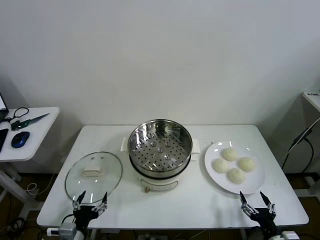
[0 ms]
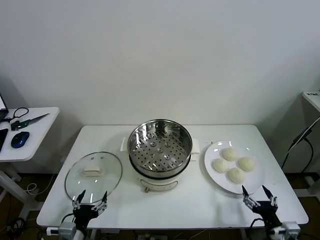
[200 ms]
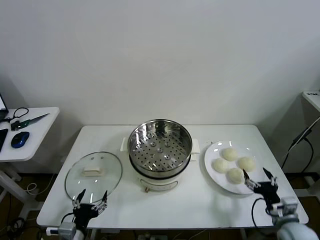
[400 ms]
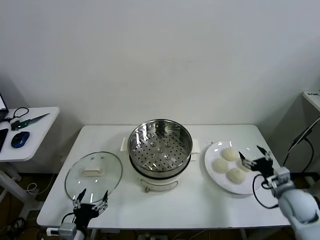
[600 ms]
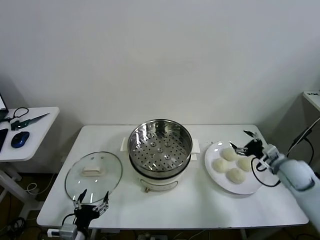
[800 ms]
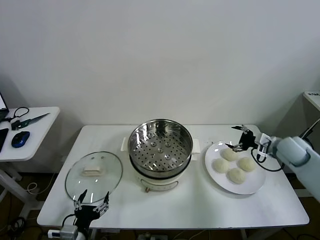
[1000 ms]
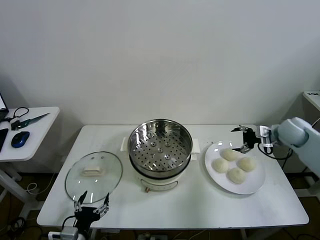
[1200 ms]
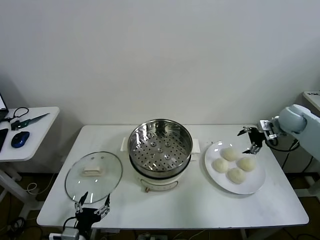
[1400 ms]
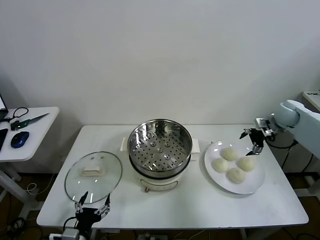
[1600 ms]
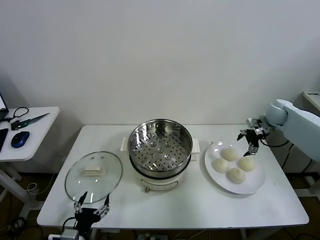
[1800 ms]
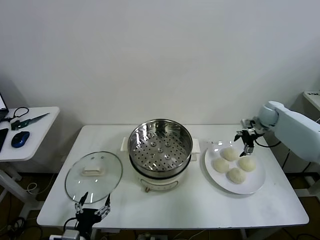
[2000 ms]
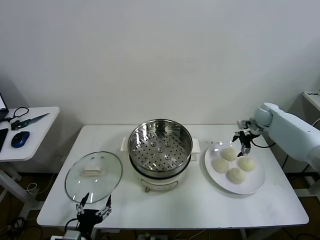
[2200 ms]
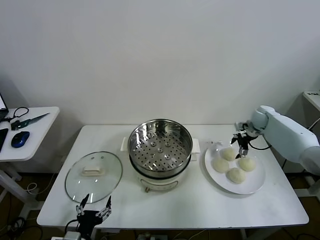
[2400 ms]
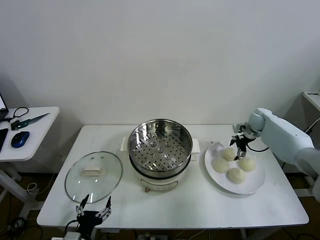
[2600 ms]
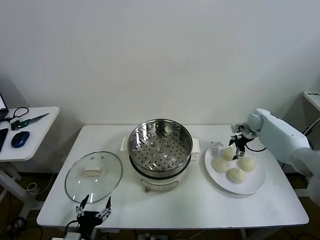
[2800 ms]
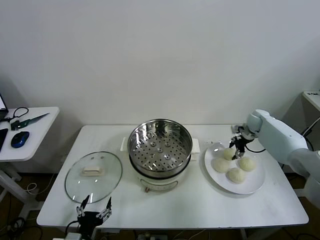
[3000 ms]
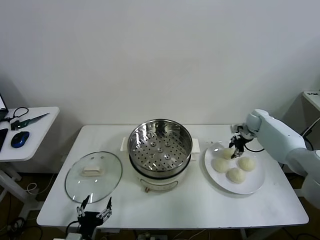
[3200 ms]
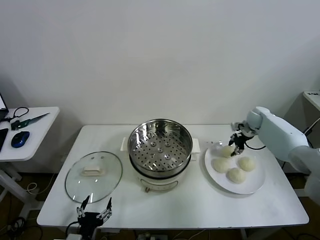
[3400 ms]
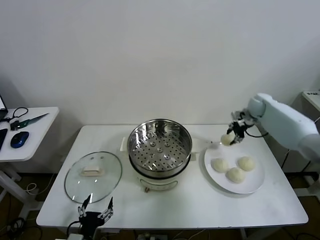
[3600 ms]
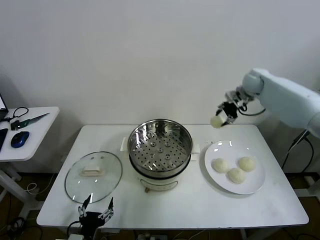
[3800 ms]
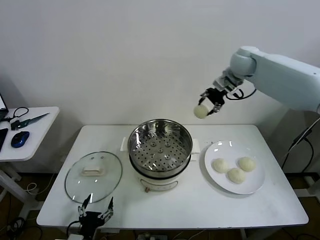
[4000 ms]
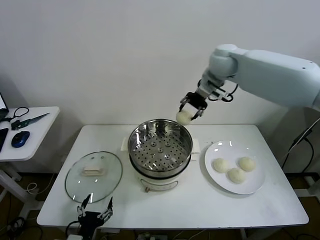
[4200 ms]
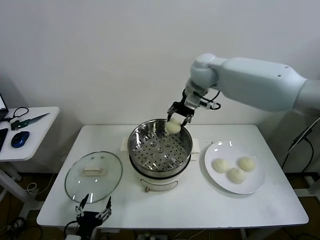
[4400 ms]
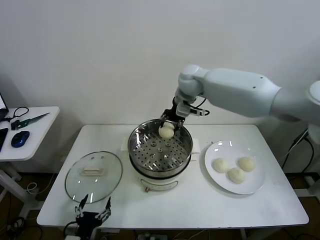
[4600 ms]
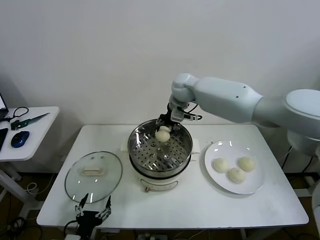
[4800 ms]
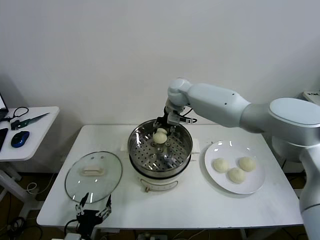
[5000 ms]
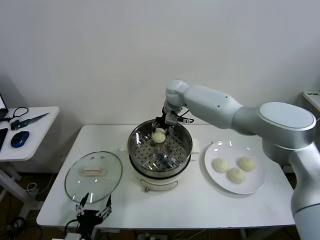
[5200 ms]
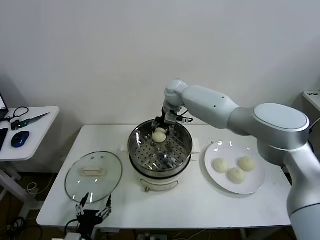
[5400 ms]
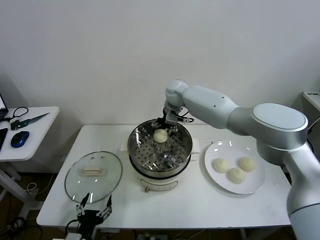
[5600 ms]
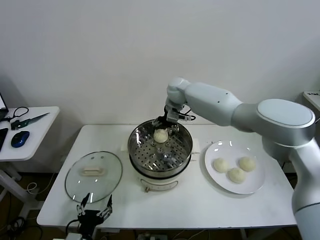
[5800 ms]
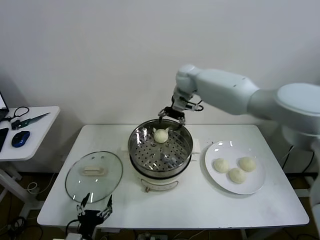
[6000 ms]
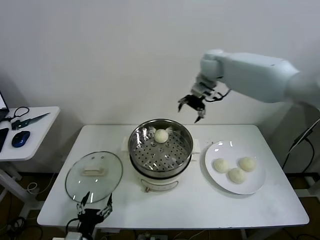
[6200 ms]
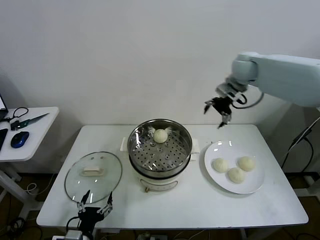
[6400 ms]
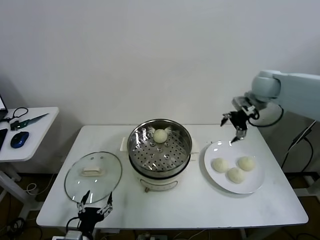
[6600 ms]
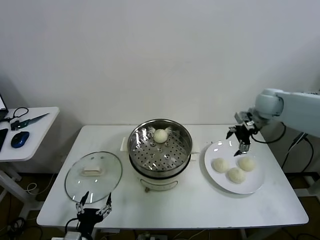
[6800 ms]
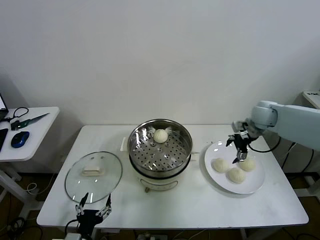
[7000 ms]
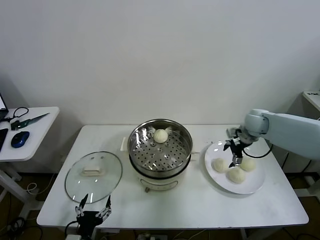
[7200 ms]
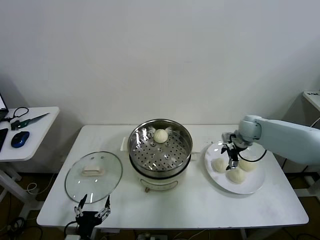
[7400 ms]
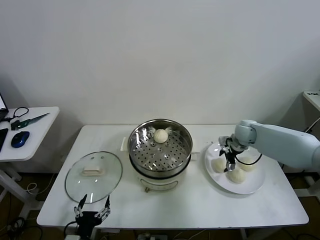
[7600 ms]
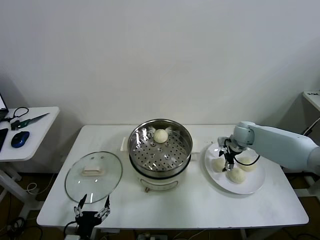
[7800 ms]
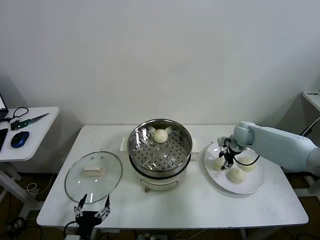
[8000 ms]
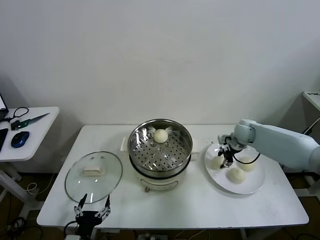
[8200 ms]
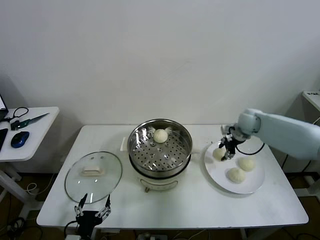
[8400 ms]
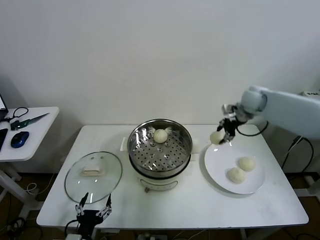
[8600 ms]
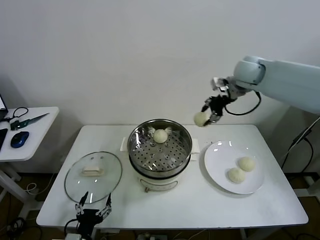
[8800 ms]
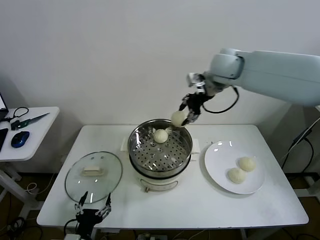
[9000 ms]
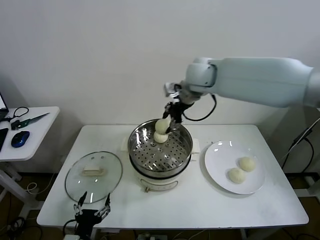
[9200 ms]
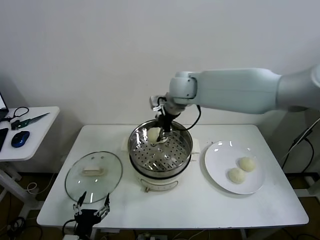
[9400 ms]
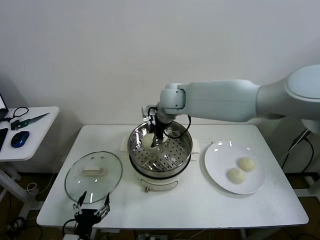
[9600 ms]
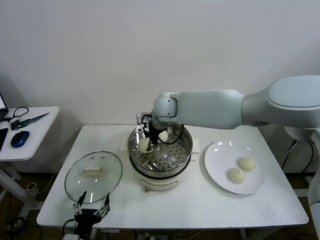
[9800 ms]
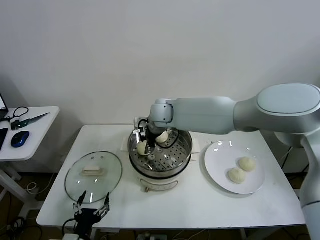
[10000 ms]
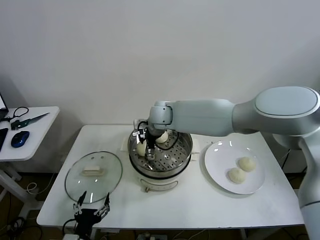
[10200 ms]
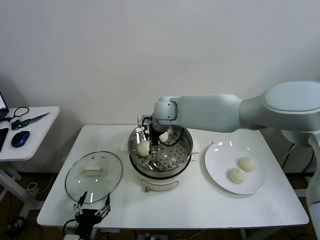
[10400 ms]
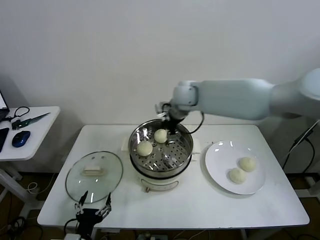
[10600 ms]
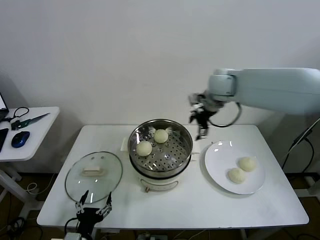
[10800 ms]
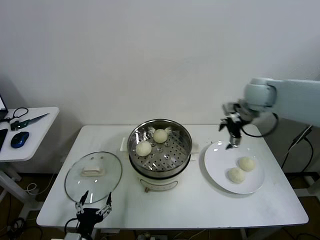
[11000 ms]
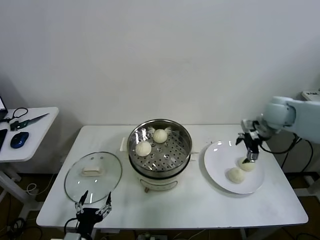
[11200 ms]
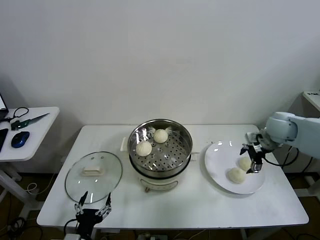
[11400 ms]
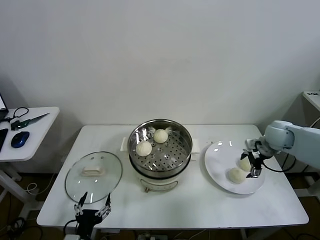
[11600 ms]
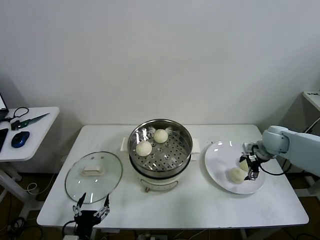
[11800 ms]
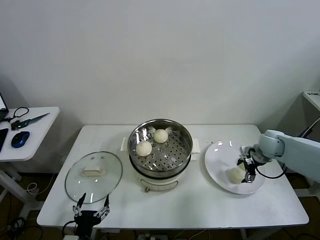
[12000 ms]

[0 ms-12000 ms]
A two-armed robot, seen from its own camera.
Task of the whole recording: take steamed baozi put them in steamer then cover it.
Step, 0 ms to 2800 ms: Grasp the baozi in the plate with right gripper.
Step, 3000 ms to 5800 ms: Place the baozi on the steamer with right gripper.
Step, 6000 ms to 7800 ms: Grasp the baozi in the plate with right gripper.
Step, 8000 ms to 10400 ms: Place the baozi on the steamer with right gripper.
1600 ms to 3000 ms: The right gripper moves downward and forward, about 10 cm, and closes.
3000 ms to 4400 ms: The right gripper moves to the left and upward, about 40 cm.
4400 ms to 6000 ms: The right gripper moves forward, some 5 cm, moves approximately 10 cm downward and comes back, and opens up.
6000 ms to 7600 ms: The right gripper goes about 30 cm downward and to the right.
7600 ms to 9000 ms: The right gripper travels upward and to the left by roughly 35 cm, and closes up.
9000 ms to 10400 ms: The right gripper is displaced to the left and downward by approximately 20 cm, and opens.
10400 ms to 12000 ms: The right gripper heads to the right, covering roughly 40 cm.

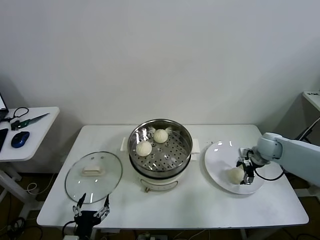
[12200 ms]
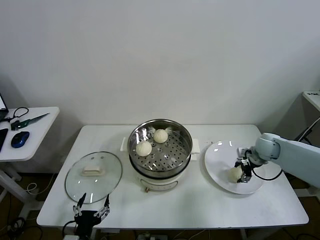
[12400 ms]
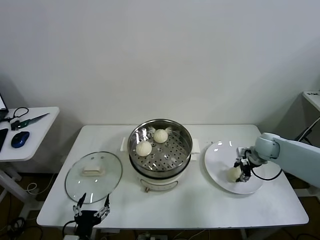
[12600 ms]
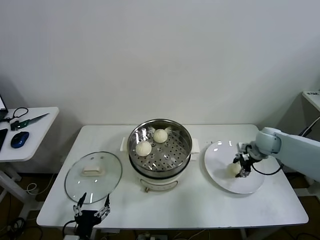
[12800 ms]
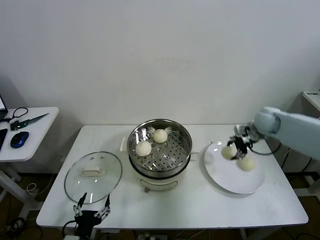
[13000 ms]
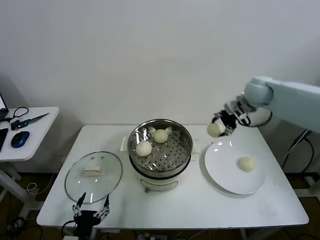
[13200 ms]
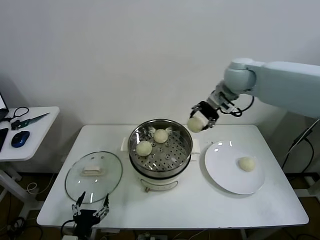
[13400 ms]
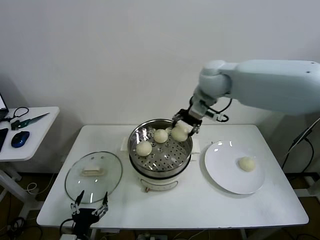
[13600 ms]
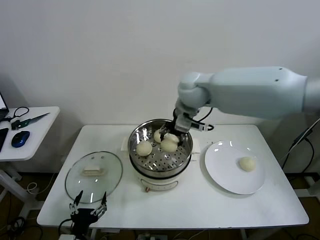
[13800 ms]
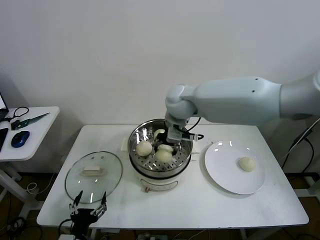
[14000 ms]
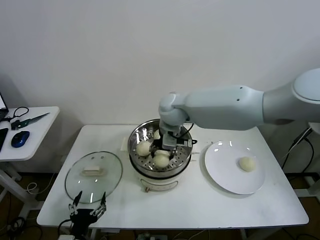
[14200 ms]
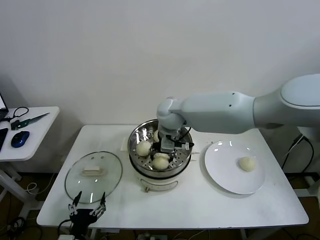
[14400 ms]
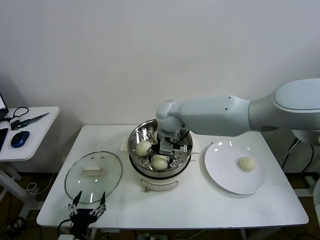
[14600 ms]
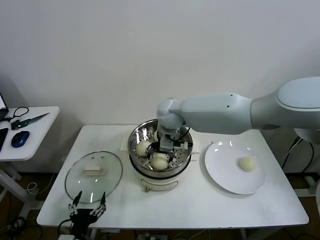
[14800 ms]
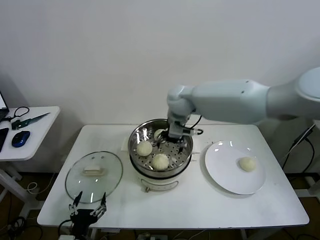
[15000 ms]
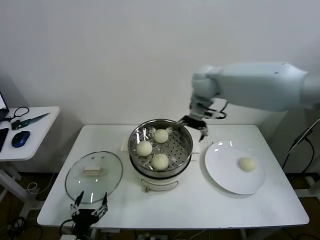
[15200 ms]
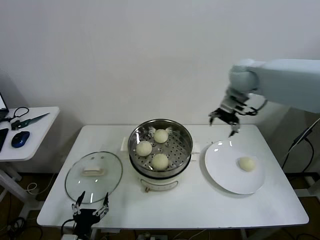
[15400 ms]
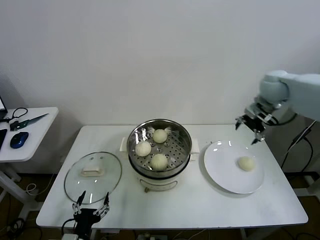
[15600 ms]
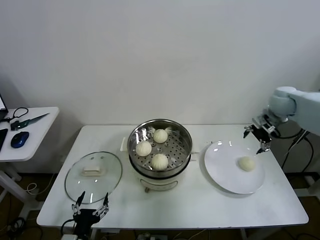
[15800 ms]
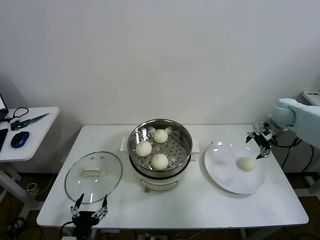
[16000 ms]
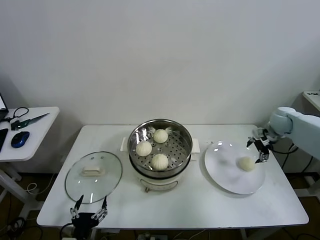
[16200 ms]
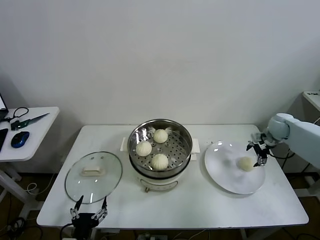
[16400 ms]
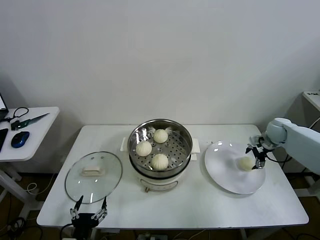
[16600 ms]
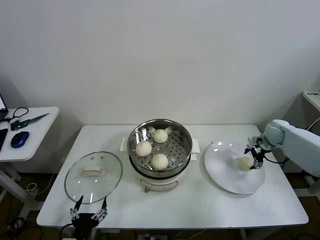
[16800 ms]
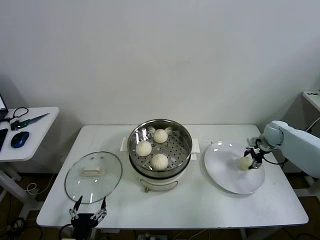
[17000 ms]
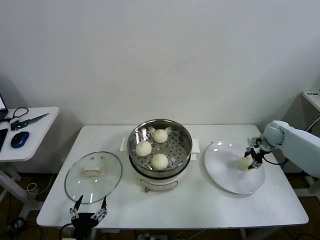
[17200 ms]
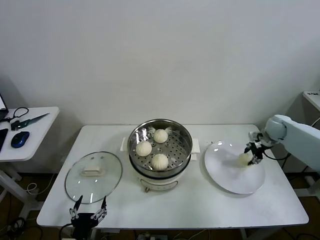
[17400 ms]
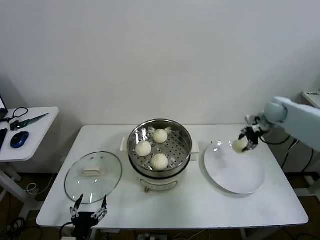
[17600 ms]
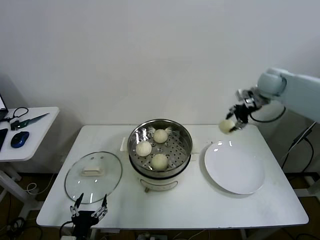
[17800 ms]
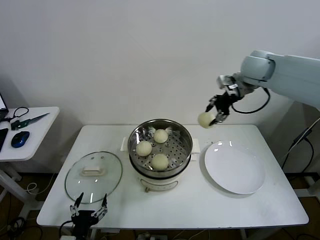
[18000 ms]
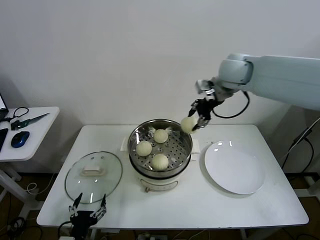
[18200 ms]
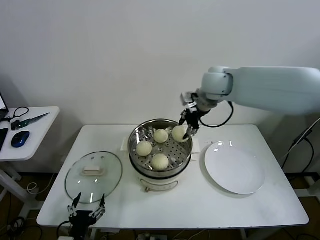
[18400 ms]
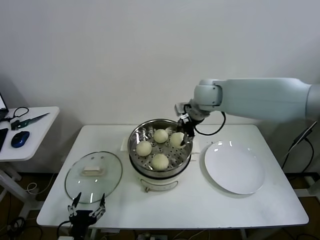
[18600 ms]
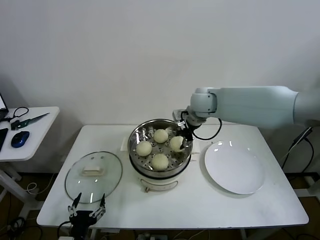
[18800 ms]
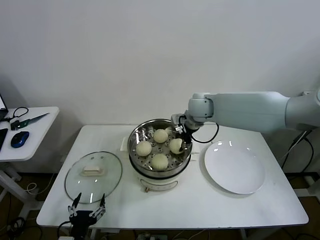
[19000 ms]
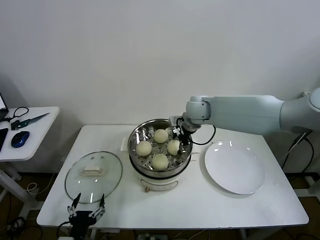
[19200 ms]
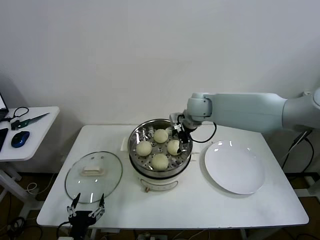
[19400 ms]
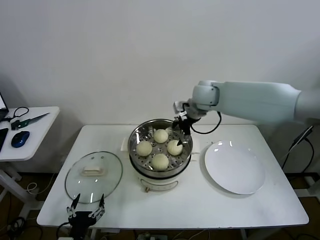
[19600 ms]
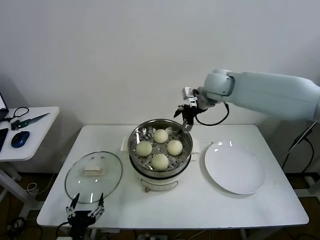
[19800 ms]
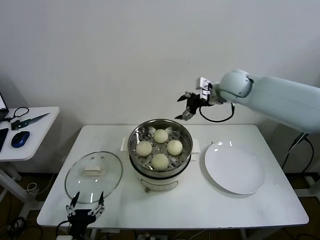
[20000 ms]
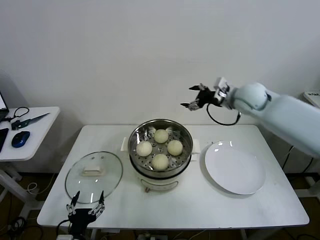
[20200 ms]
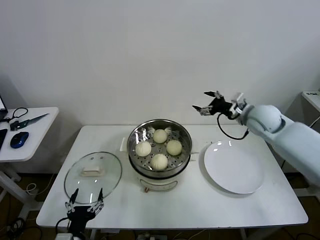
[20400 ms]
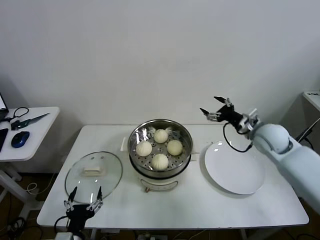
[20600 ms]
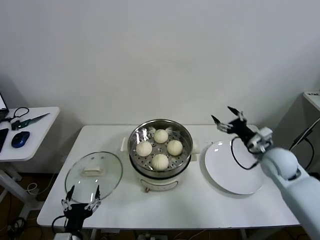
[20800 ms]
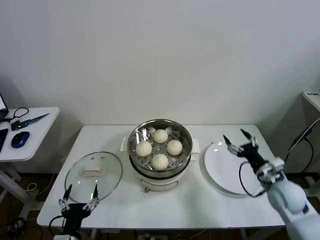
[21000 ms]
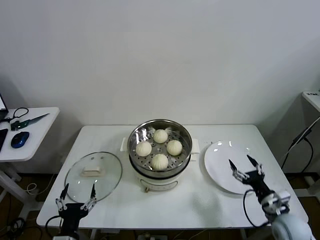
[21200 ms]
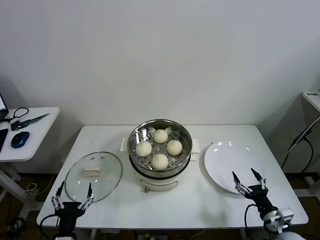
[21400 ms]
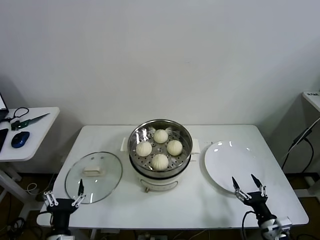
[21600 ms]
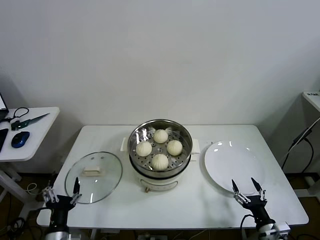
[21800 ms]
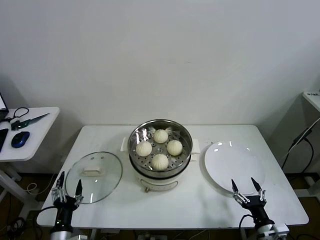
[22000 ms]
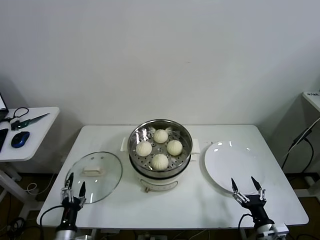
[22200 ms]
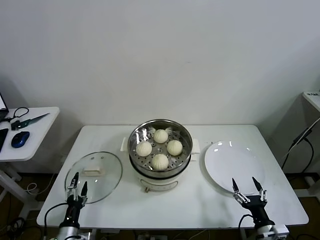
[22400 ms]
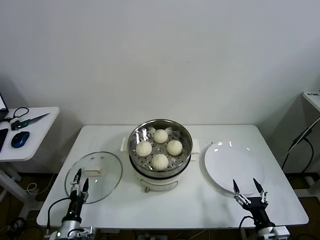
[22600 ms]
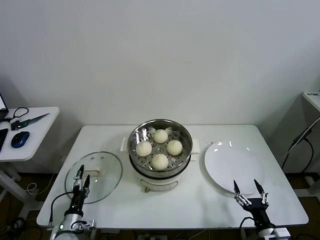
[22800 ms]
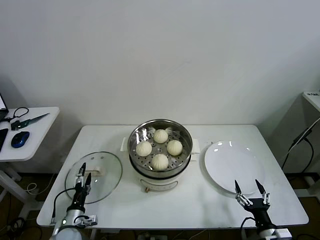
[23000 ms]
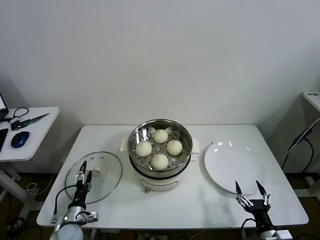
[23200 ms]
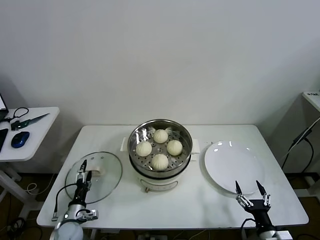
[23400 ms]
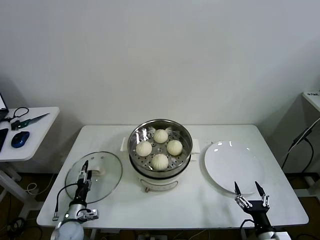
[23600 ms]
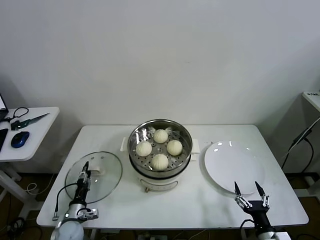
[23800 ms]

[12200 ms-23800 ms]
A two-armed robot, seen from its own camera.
Task of the whole recording: take steamed baozi put them in steamer then cover it.
Step, 12600 ms to 14600 ms: Place the baozi on the steamer with right gripper.
Step, 15000 ms to 17000 ms: Grasp the baozi in the plate with right gripper.
Step, 17200 ms to 19200 ms: Place the baozi on the steamer with right gripper.
12200 ms to 13600 ms: The right gripper shifts roughly 35 cm upward and to the left, and closes up.
13600 ms to 15000 ms: The right gripper goes roughly 10 cm downward and to the left, and opens its fingers.
15000 ms to 16600 ms: The right gripper goes some 40 cm to the right and downward.
16600 ms to 18000 ms: The right gripper moves upward and to the left, roughly 30 cm, and closes its fingers.
18000 ms to 19400 ms: The right gripper is displaced to the left and downward by some 20 cm, and opens its fingers.
19400 ms to 21000 ms: The right gripper travels to the right, backward and downward by about 40 cm.
21000 ms to 22400 ms: The right gripper moves backward and downward, some 20 cm, while the left gripper goes some 10 cm downward and to the left.
22400 ms to 23800 ms: The left gripper shifts roughly 10 cm forward, and closes.
